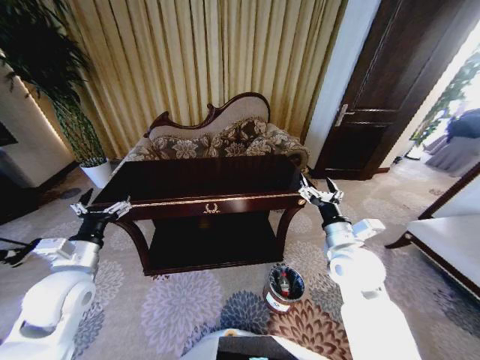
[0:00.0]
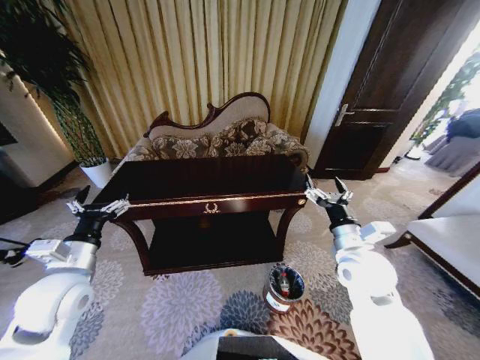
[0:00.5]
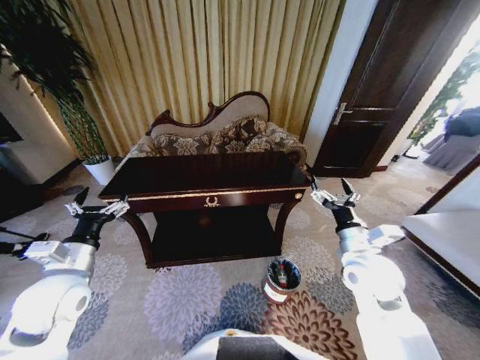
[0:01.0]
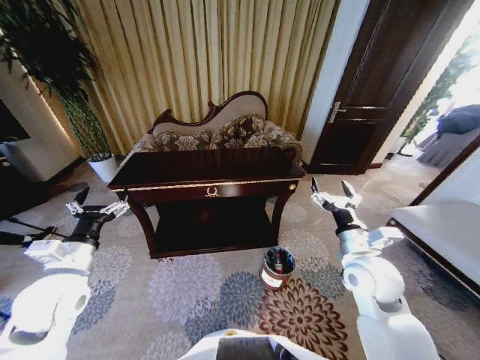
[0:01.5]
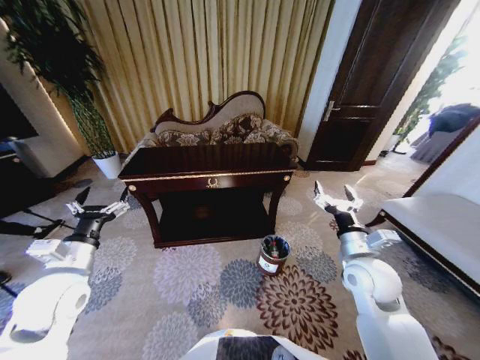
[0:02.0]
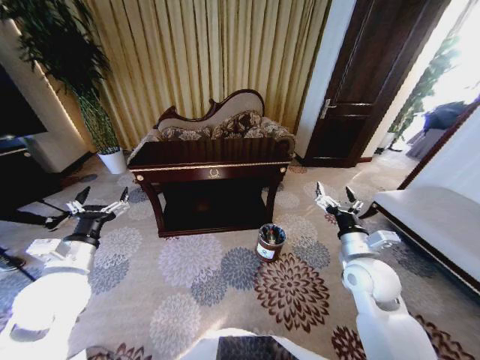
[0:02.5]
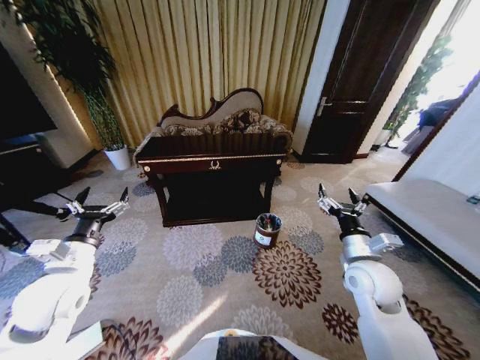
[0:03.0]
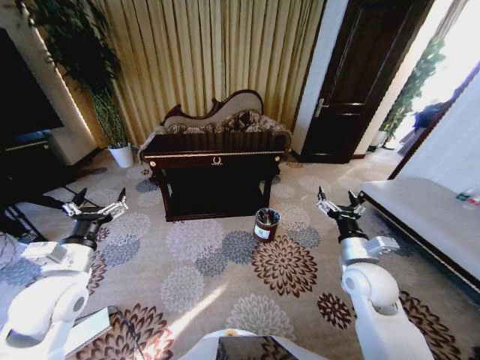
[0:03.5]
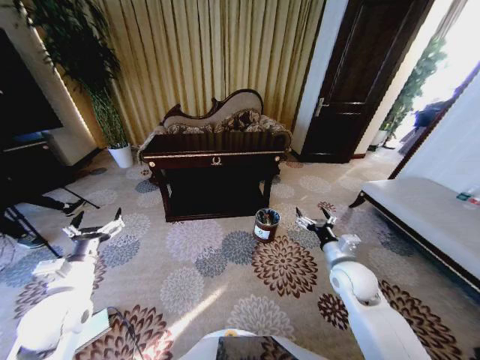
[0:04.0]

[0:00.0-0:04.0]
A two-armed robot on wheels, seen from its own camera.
Task of the whole recording: Move to the front of the table and place the trash on the table into the trash bin.
0:02.0 to 0:04.0: The left gripper shifts by roughly 5 cm. Meanwhile the right gripper shifts roughly 5 cm downward.

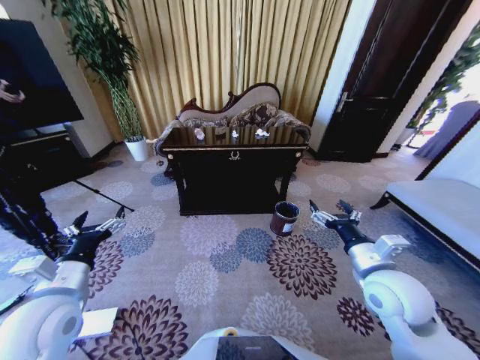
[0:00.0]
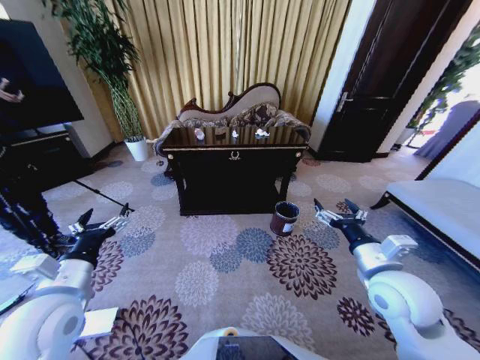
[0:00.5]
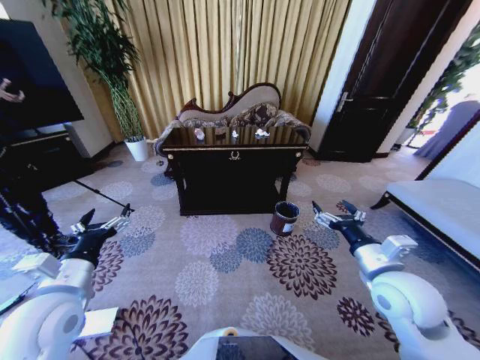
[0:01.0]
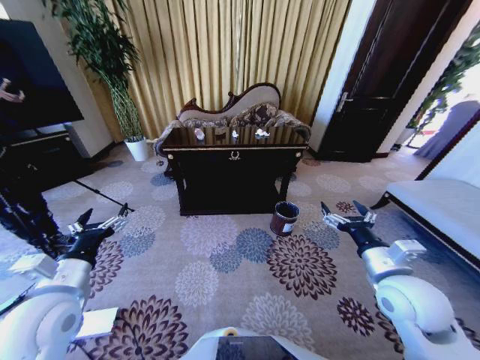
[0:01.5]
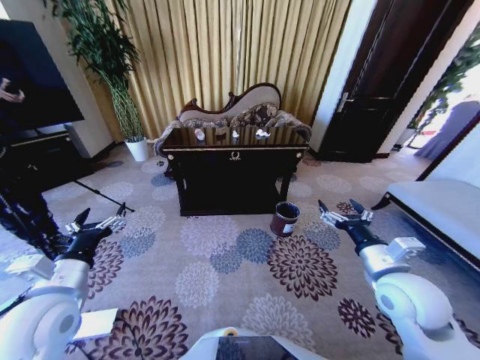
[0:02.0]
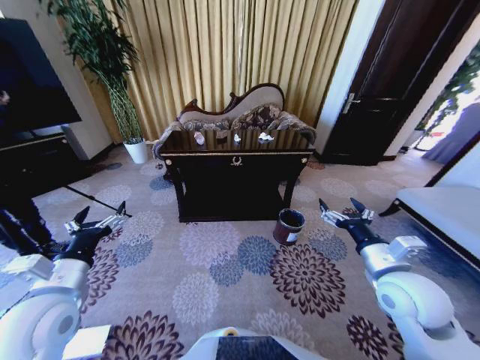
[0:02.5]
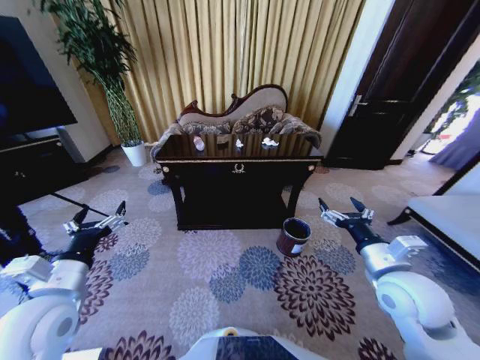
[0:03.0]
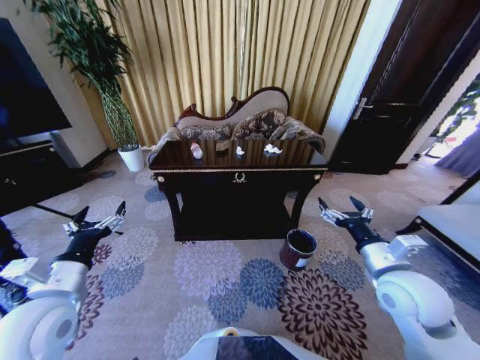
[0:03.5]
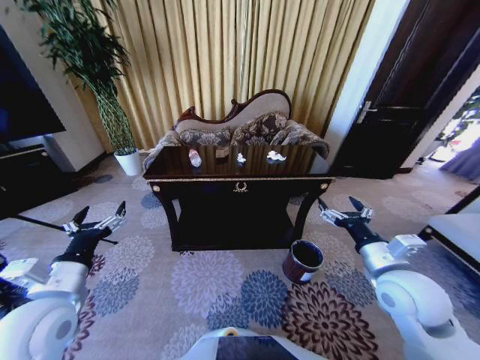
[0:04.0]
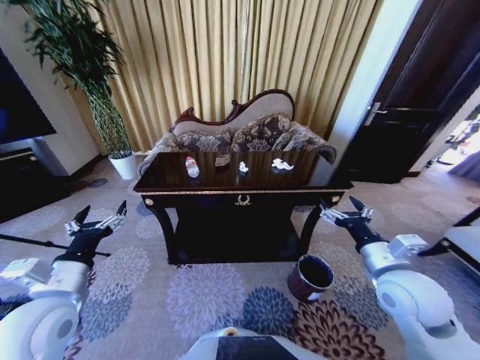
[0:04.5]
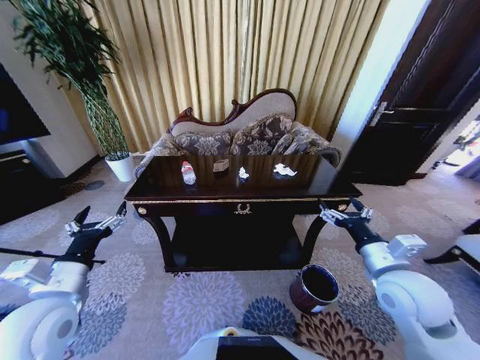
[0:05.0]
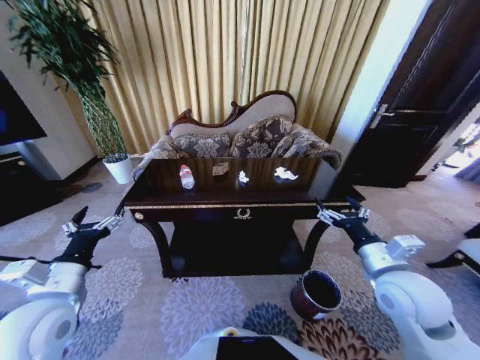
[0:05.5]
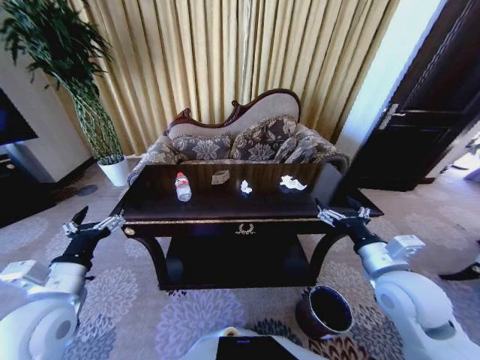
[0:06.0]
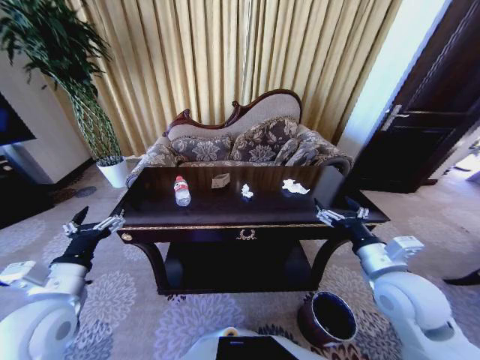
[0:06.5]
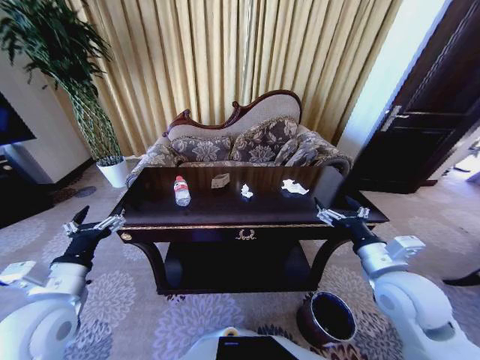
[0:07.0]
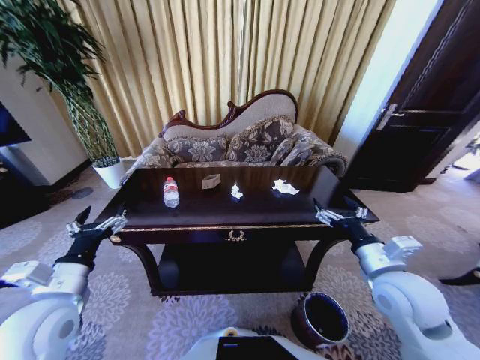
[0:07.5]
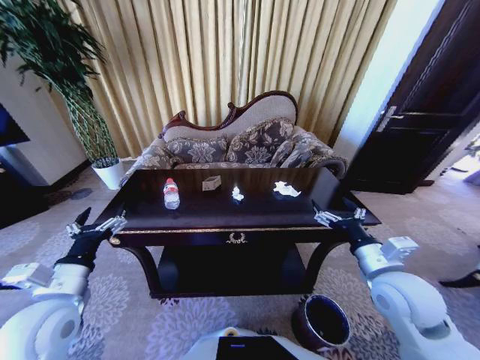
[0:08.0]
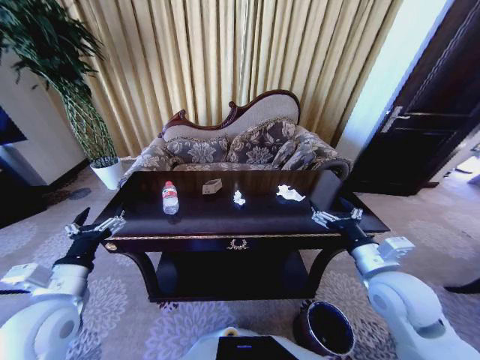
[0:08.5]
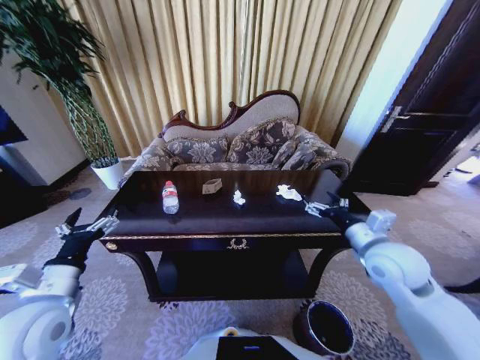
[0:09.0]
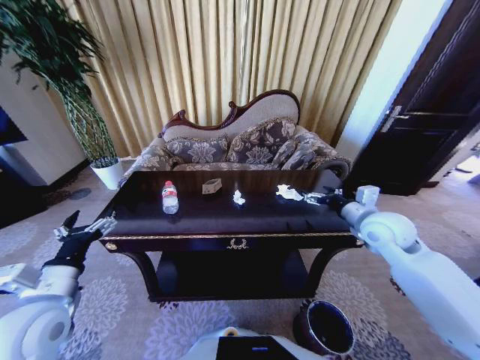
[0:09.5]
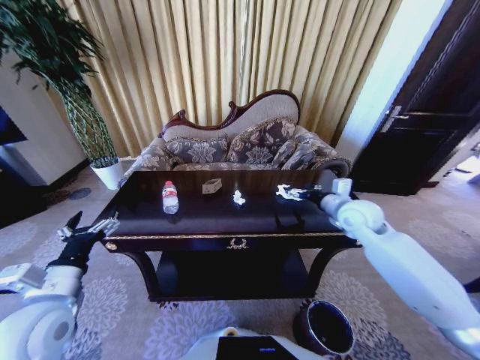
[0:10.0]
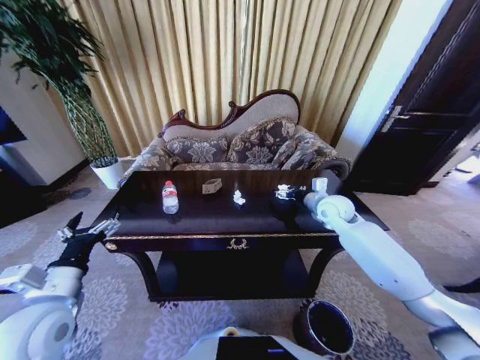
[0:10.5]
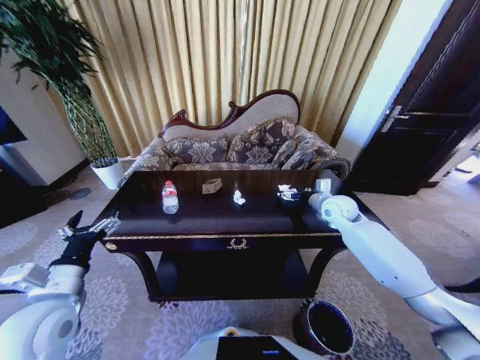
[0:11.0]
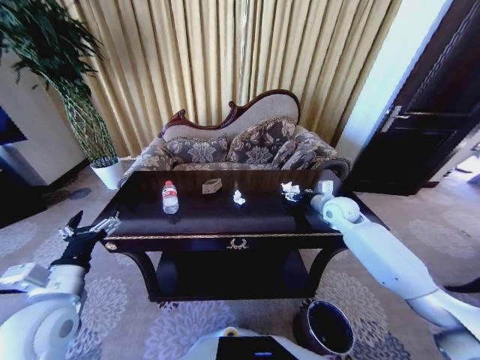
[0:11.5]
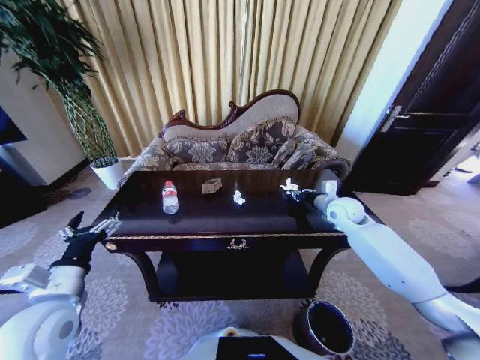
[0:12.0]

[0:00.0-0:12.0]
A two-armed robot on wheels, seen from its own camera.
Task of the whole recording: Move to the front of the table and place the trash on the table into the trash bin.
0:08.0 to 0:10.0: The right gripper heads forward, covering roughly 20 cm.
0:10.0 to 0:12.0: The right gripper is displaced forward by some 5 cm, and closes up.

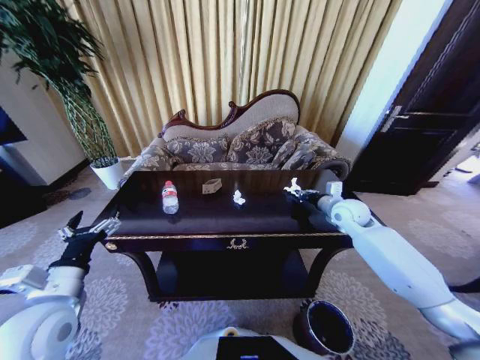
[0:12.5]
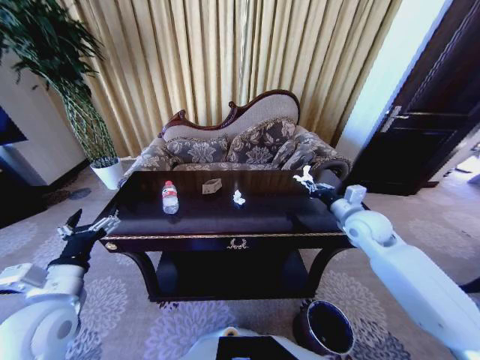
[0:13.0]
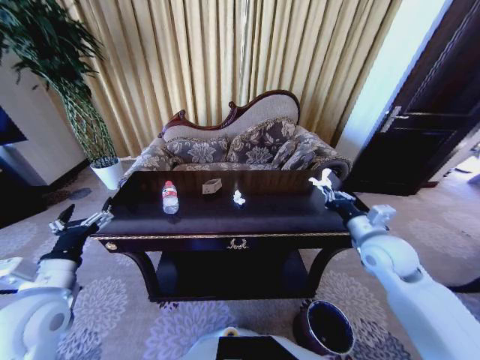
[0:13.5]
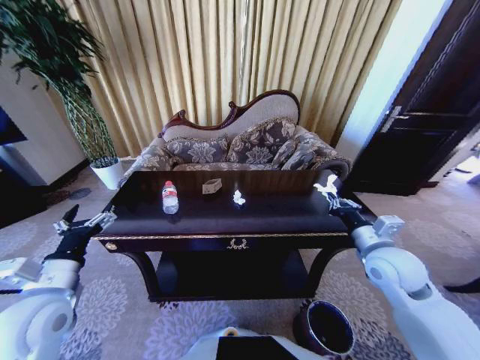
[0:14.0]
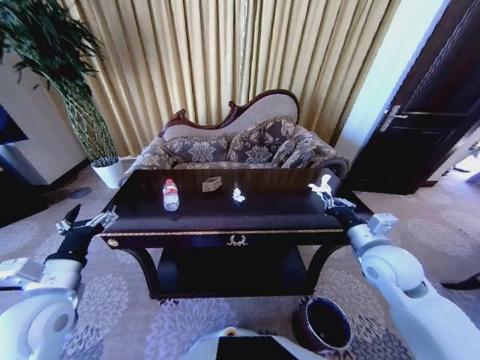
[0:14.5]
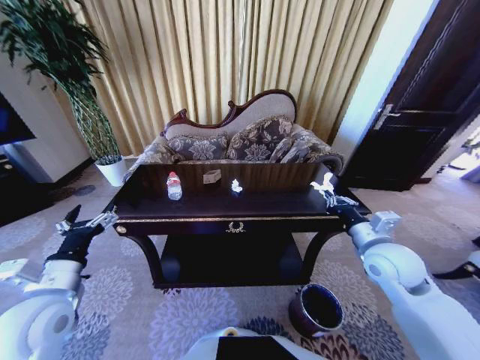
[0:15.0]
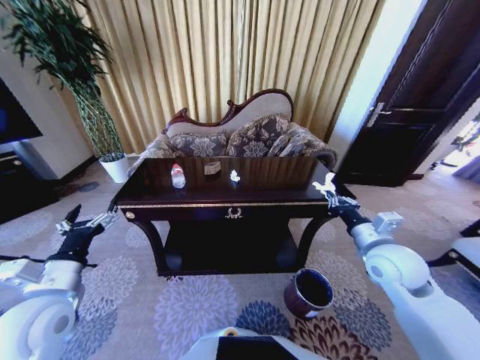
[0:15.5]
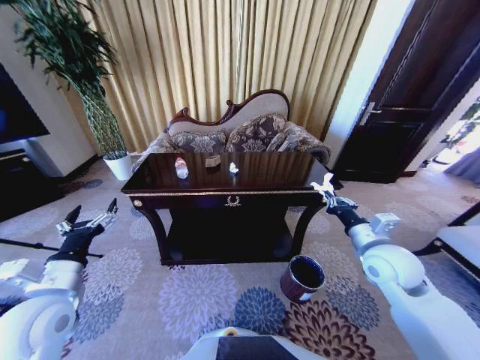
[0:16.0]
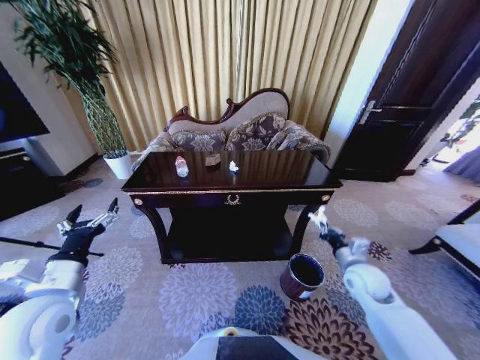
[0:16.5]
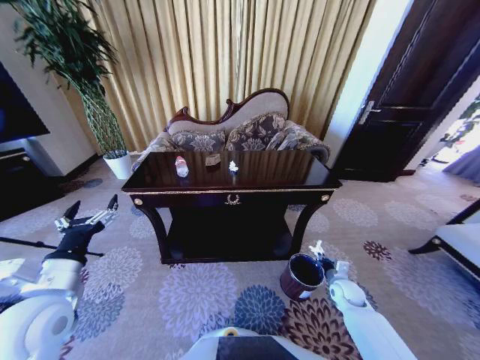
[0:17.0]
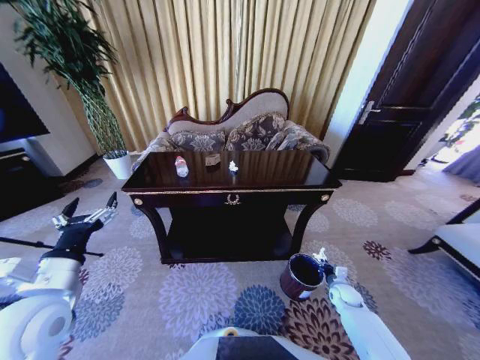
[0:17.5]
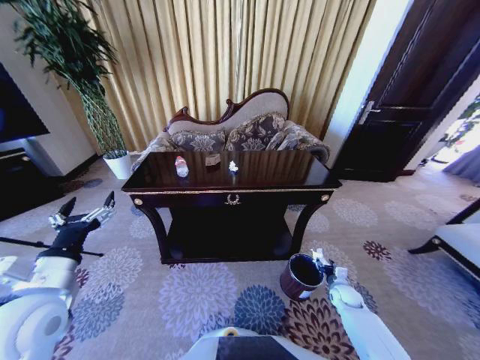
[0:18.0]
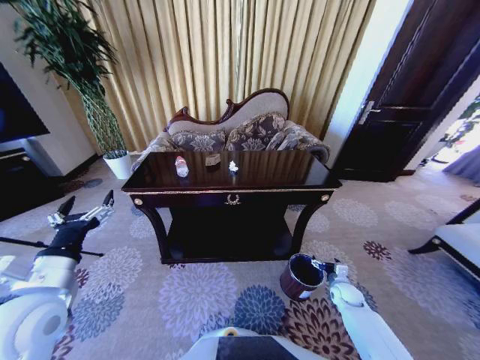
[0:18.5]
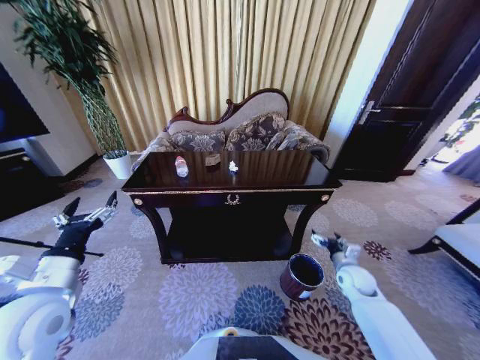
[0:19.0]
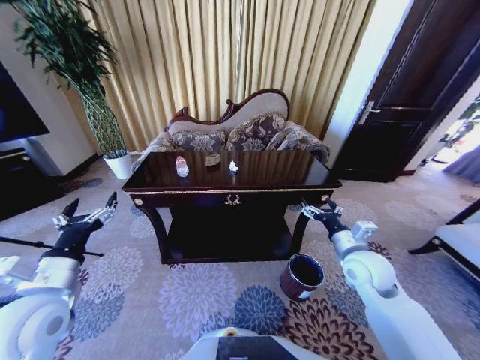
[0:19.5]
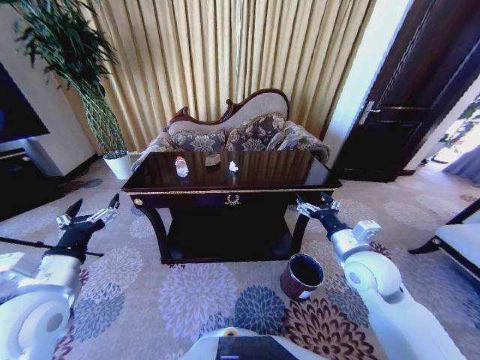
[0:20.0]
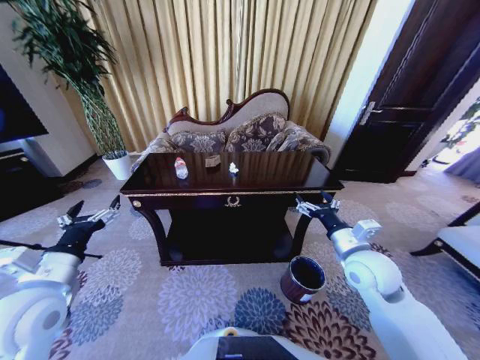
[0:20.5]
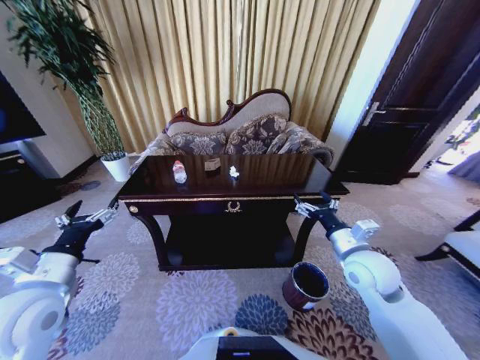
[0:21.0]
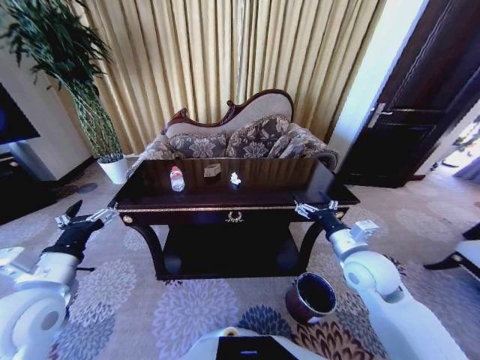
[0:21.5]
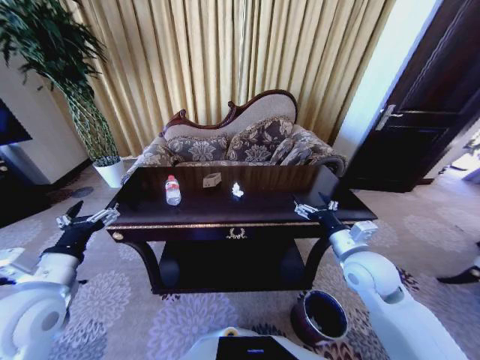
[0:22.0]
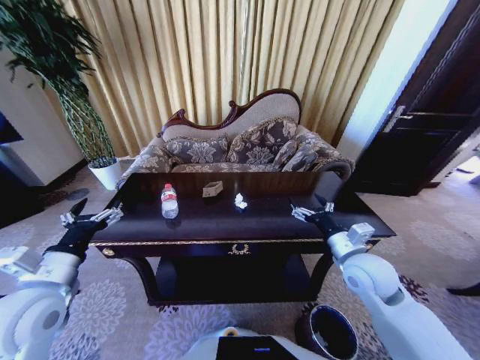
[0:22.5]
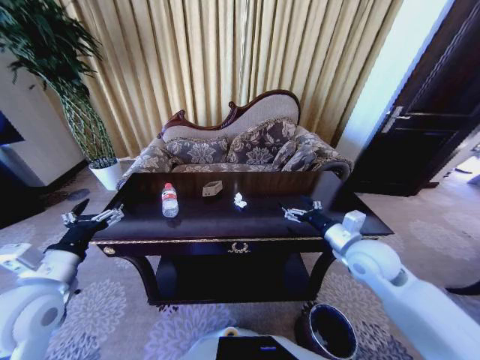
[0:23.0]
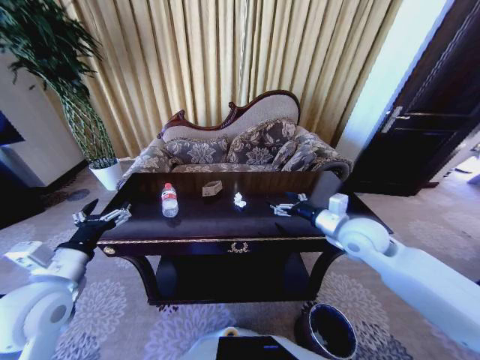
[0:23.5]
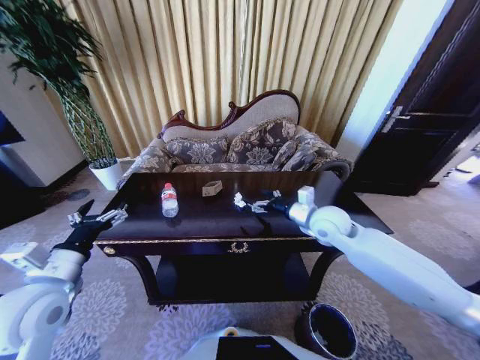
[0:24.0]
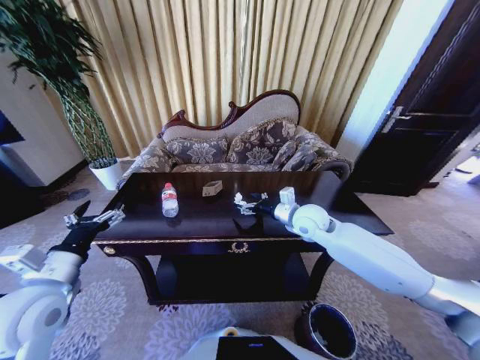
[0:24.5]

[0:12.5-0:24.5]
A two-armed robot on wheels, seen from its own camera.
Task of the whole recording: Move to the front of the table and place the trash on the table into the trash bin.
0:12.5 to 0:14.5: The right gripper goes some 20 cm backward.
0:14.5 to 0:16.5: The right gripper is displaced downward by roughly 10 cm.
0:16.5 to 0:18.5: The right gripper moves downward, about 20 cm, and opens its fingers.
0:18.5 to 0:20.5: The right gripper goes about 35 cm upward and to the left.
0:22.5 to 0:24.5: The right gripper goes approximately 15 cm forward and to the left.
